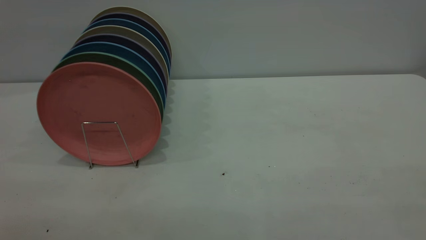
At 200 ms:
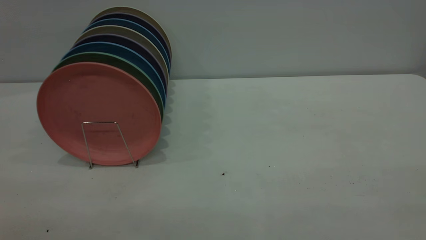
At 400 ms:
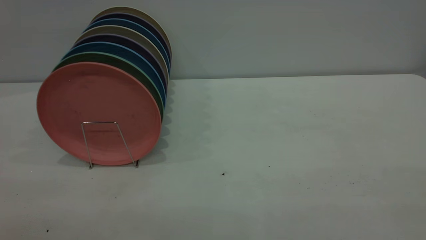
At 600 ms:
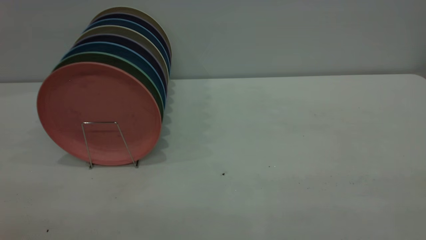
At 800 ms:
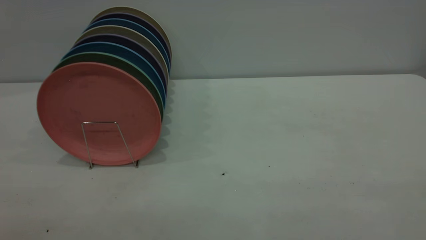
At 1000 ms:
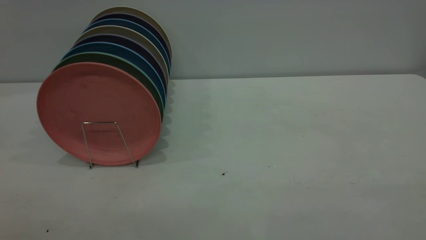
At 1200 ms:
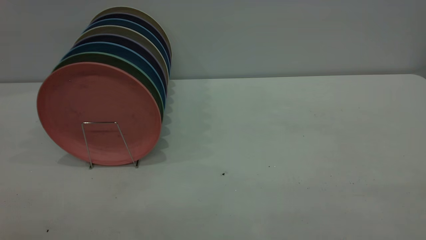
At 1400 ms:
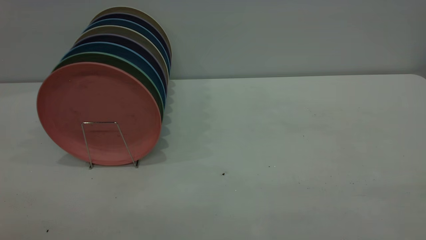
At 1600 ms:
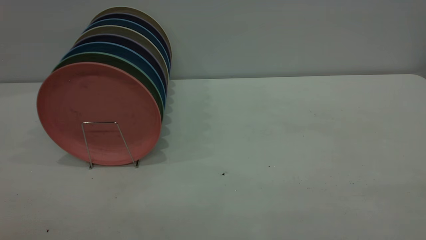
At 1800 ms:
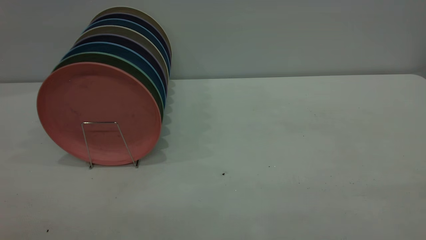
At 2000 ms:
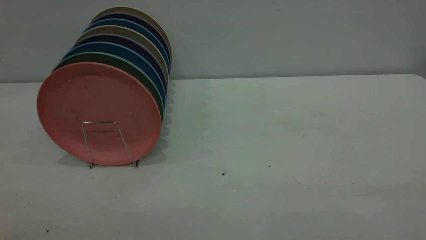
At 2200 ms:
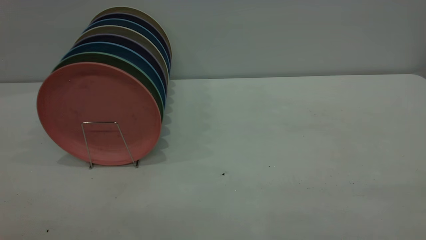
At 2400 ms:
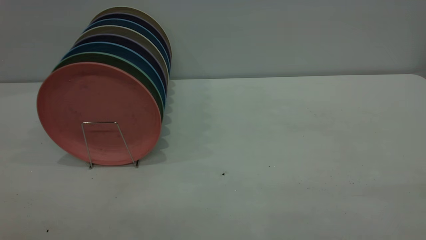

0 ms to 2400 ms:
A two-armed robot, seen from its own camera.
Task of the whole recording: the right gripper grasp the pink plate, the right gripper pass the pink plate to the left gripper, and the left gripper place the pink plate on the plate rack.
1200 ms to 2400 ms: Both grippers stay put.

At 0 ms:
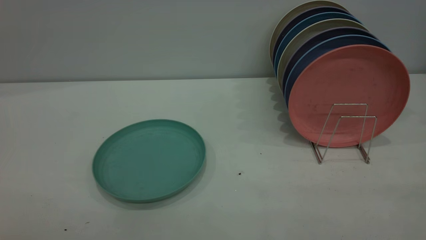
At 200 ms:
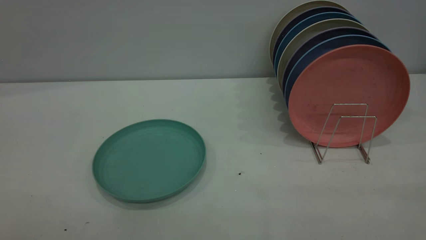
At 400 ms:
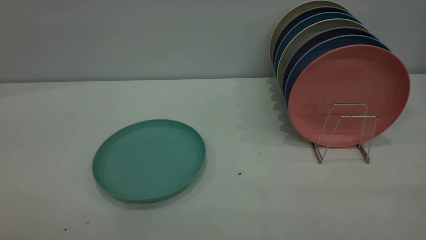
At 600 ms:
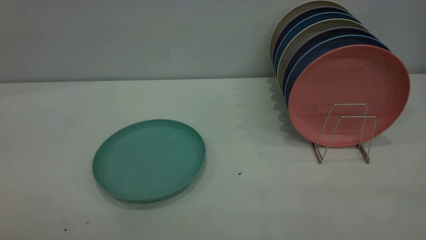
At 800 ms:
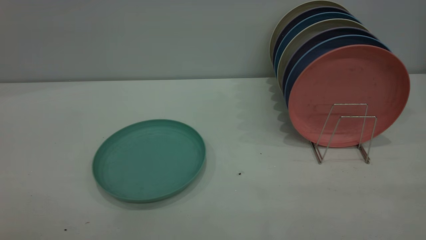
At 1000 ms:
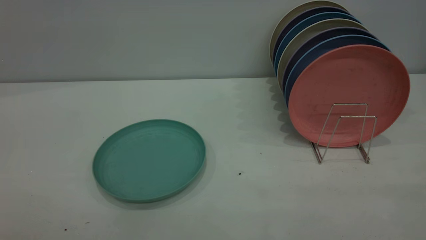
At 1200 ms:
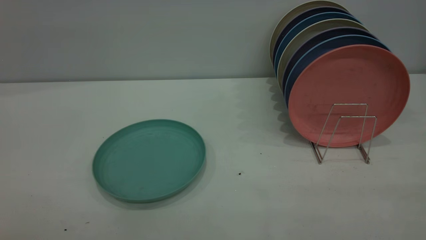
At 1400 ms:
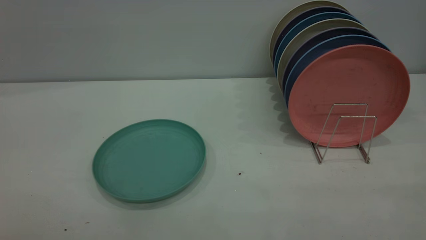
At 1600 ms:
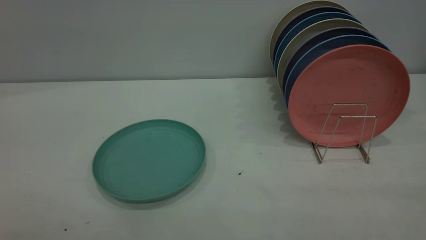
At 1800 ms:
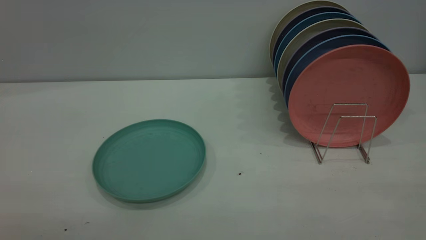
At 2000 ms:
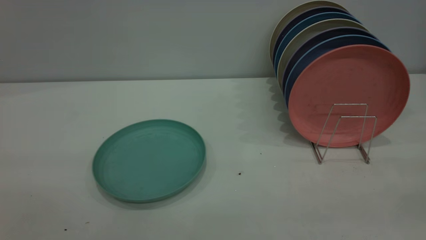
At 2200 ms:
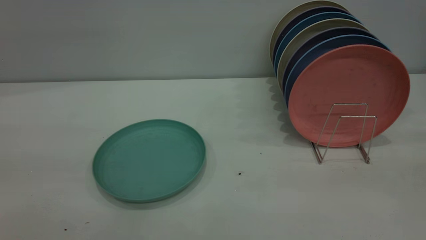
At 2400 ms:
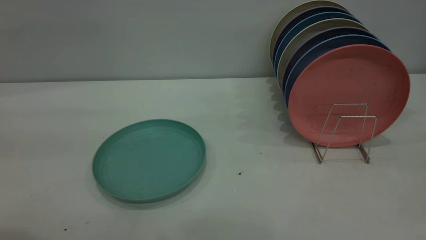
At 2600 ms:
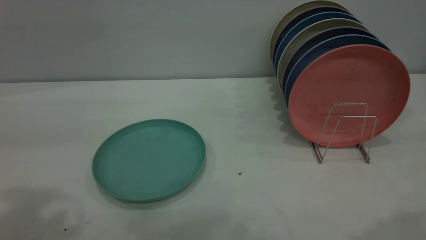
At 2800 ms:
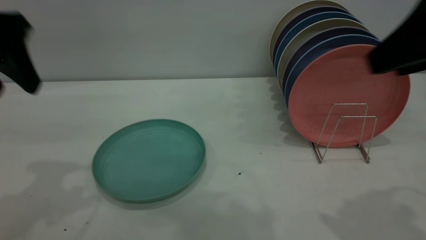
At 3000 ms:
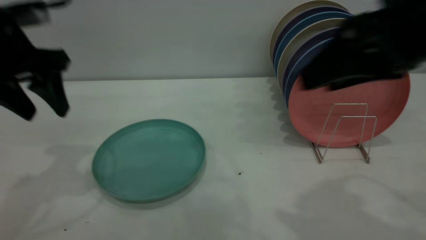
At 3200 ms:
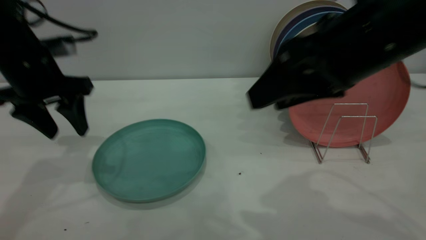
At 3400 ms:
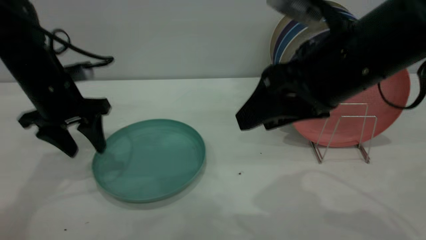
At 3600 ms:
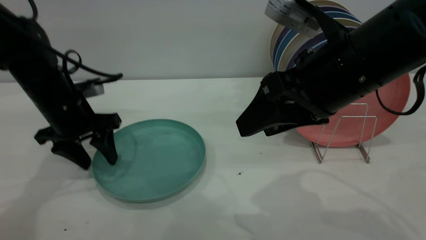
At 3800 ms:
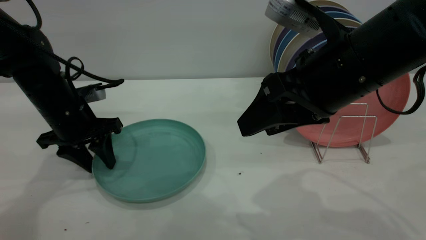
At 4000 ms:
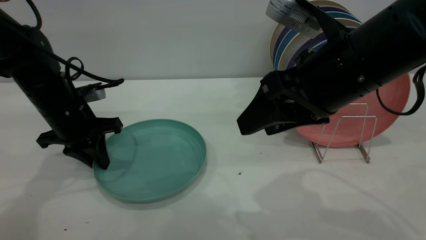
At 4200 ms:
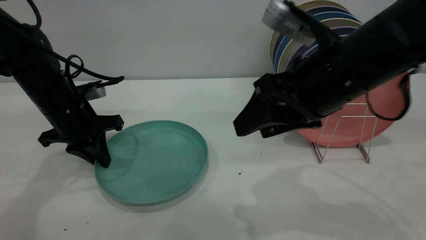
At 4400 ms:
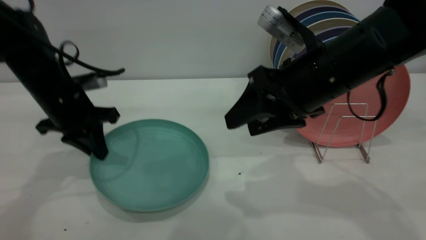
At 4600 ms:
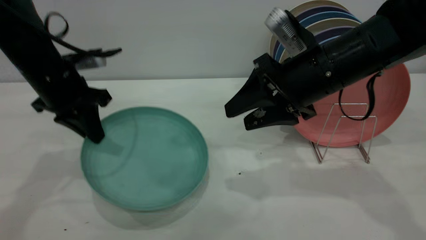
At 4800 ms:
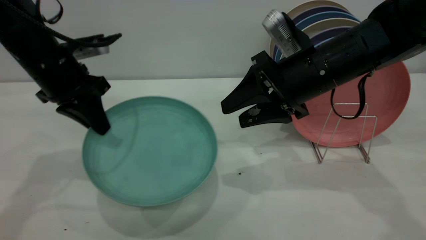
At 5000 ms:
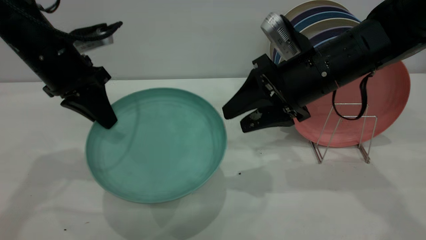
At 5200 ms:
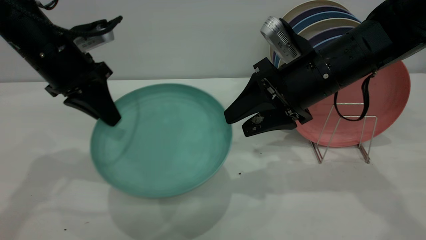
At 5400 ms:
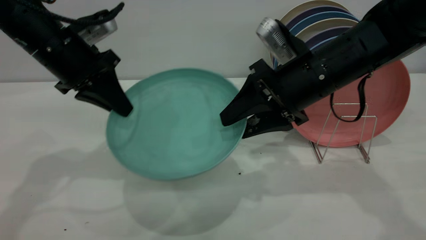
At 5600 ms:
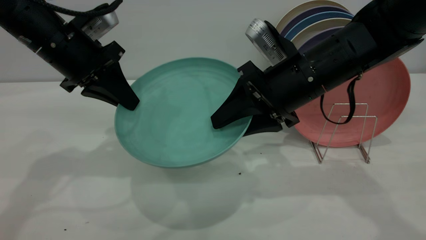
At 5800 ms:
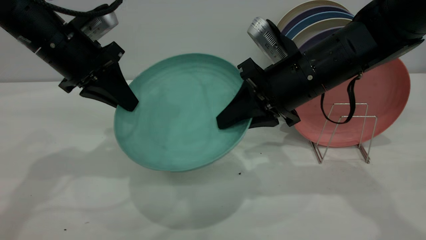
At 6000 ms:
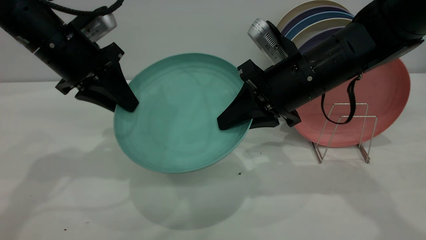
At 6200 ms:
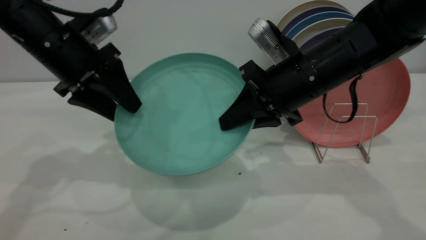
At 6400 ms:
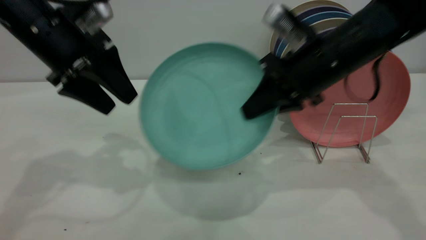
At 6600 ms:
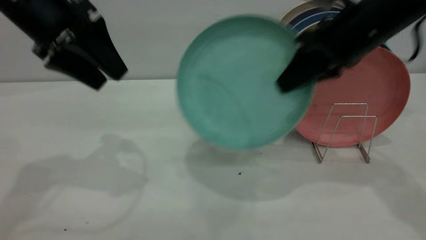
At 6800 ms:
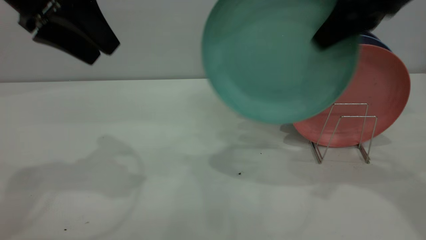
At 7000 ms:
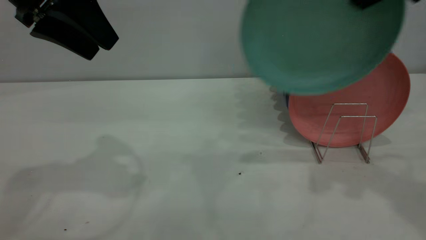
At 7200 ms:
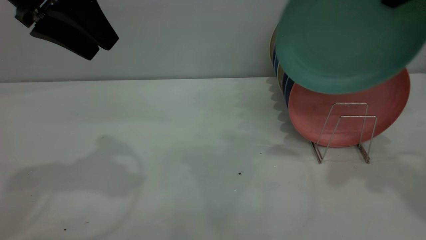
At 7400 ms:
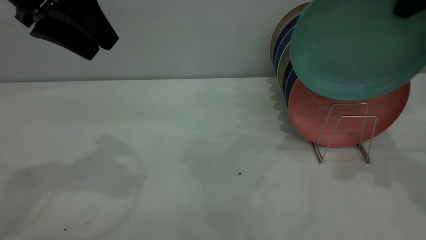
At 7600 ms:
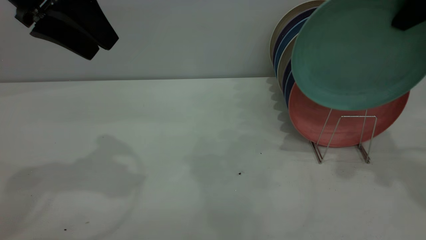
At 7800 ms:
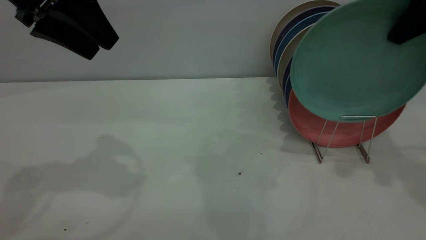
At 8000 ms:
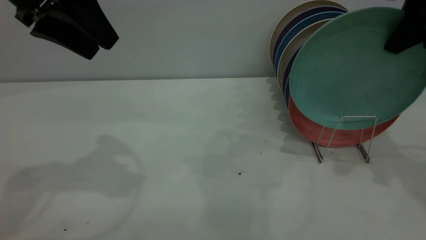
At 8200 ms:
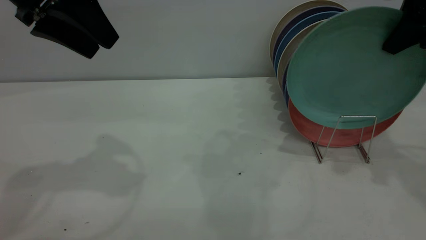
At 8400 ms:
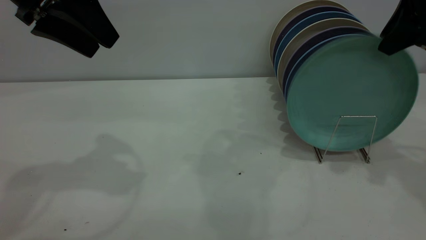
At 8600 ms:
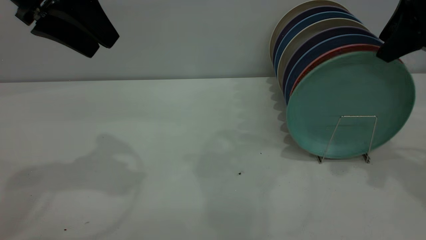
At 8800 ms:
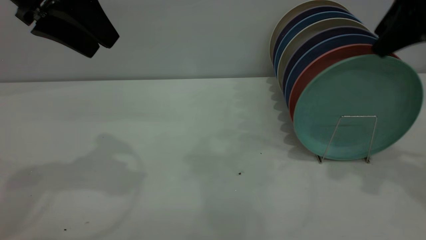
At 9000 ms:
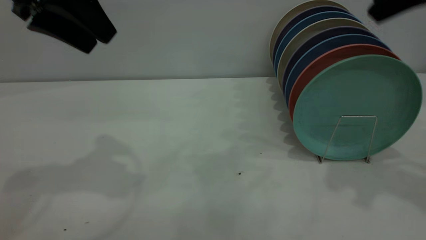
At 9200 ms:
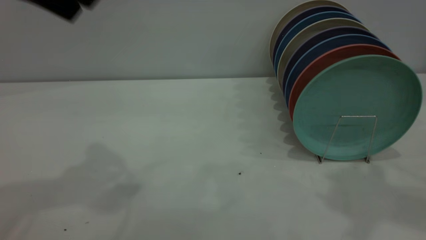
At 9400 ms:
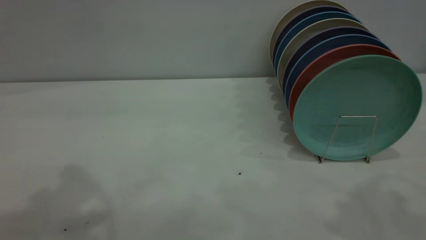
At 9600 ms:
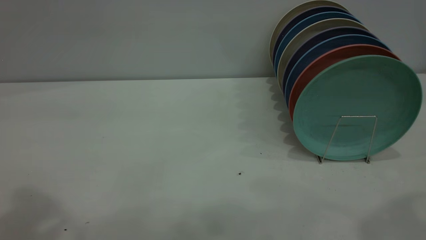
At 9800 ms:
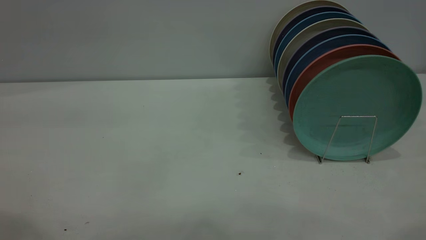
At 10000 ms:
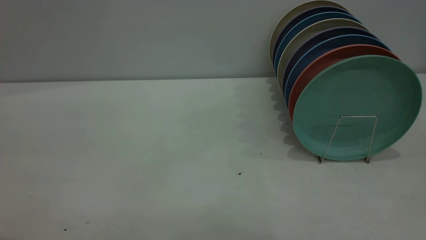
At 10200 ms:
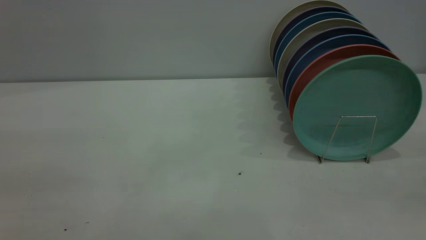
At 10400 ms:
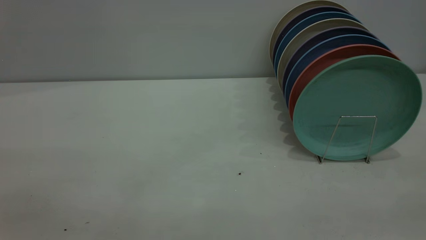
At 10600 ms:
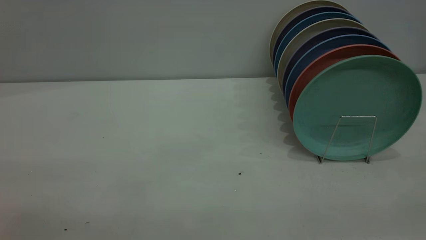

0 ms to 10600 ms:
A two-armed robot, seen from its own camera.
Task of the whole recording: the left gripper grasp the green plate, the left gripper pass the green plate to the right gripper, and the right gripper place the green plate on the plate rack.
Step, 0 ms to 4400 ms: Pick up the plate with the left gripper.
Step, 4600 ms to 6600 ms: Pass the plate from the left gripper to the right gripper.
Step, 6800 ms to 8800 ms: Place the plate on the shelf.
0 ms to 1600 ms: Both grippers stay put.
1600 ms to 3000 ms: The right gripper goes some 30 cm forward and to the left, while the left gripper shifts about 35 cm forward.
3000 ms to 4600 ms: The left gripper goes approximately 5 cm downward, and closes, while the right gripper travels forward and downward by roughly 15 cm.
4600 ms to 6000 ms: The left gripper opens. The right gripper closes up.
6000 ms to 7600 ms: The left gripper travels upward by some 10 cm, and opens up. Meanwhile the right gripper heads to the right and upward, covering roughly 20 cm.
7600 ms to 9000 ms: The right gripper moves roughly 5 cm, and opens up.
9000 ms to 10600 ms: Both grippers travel together backward, approximately 25 cm.

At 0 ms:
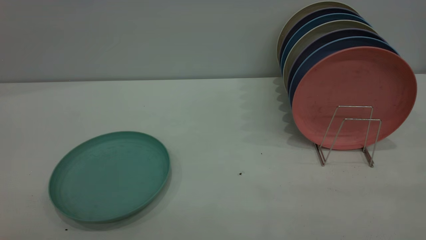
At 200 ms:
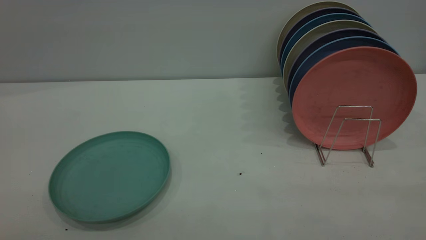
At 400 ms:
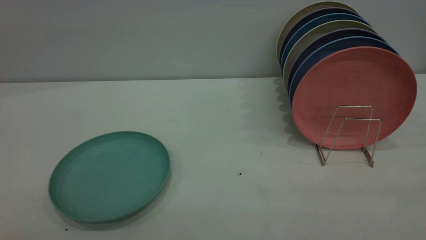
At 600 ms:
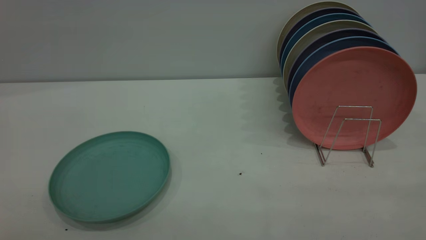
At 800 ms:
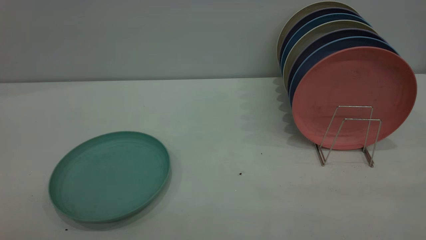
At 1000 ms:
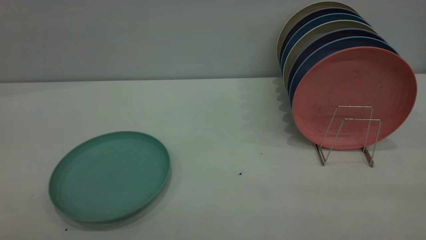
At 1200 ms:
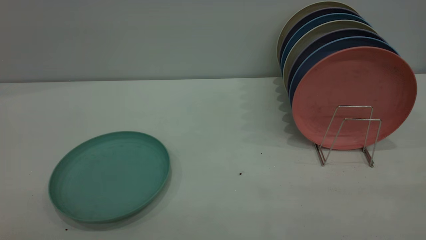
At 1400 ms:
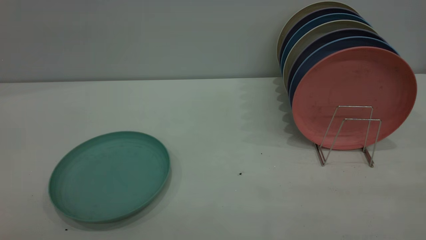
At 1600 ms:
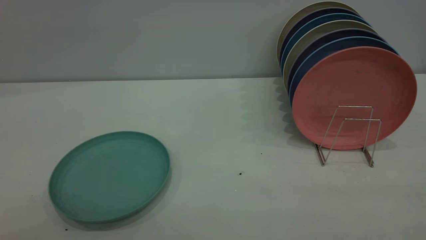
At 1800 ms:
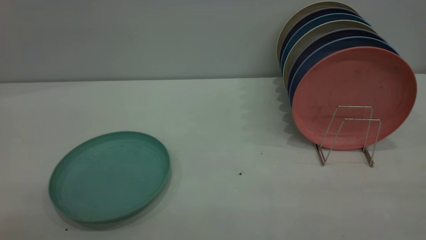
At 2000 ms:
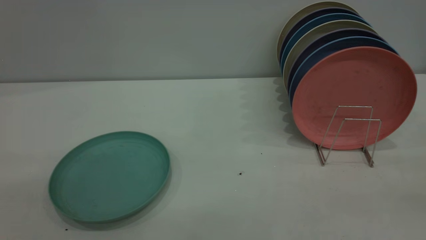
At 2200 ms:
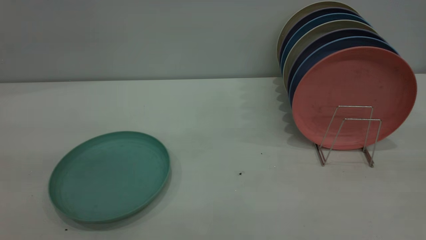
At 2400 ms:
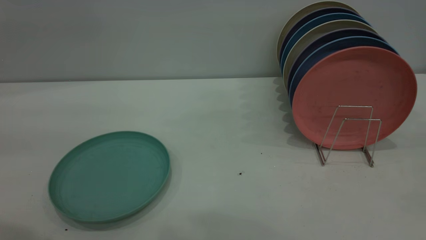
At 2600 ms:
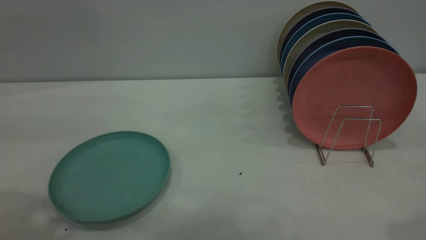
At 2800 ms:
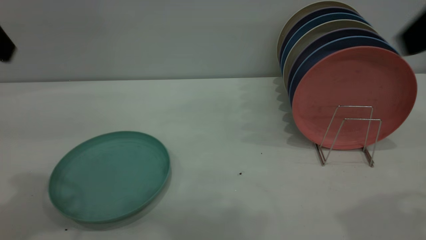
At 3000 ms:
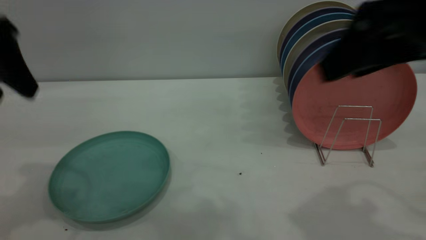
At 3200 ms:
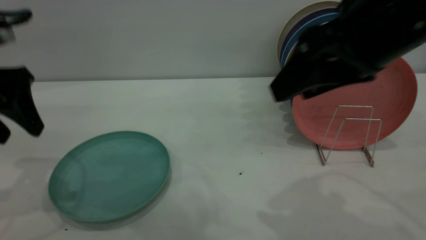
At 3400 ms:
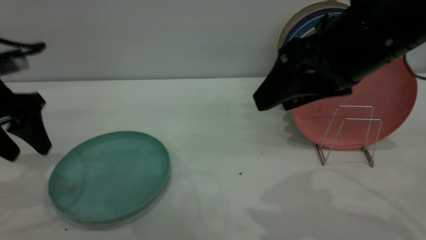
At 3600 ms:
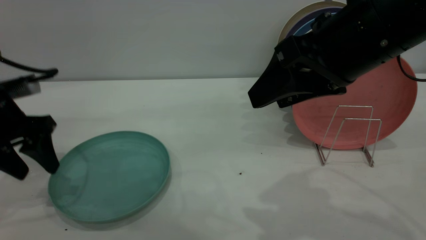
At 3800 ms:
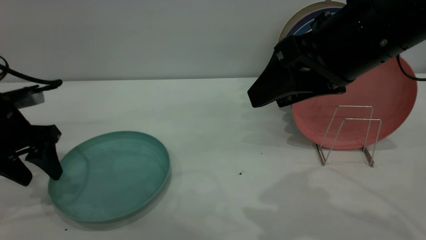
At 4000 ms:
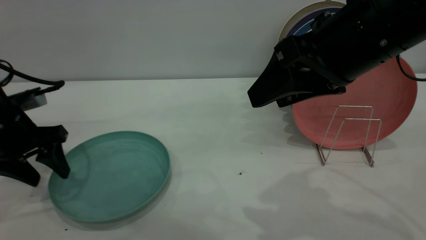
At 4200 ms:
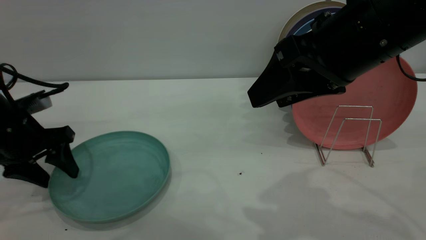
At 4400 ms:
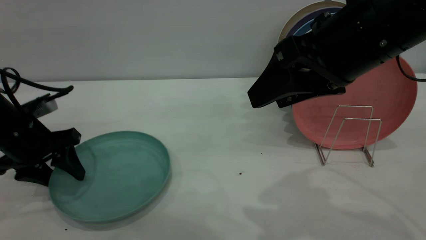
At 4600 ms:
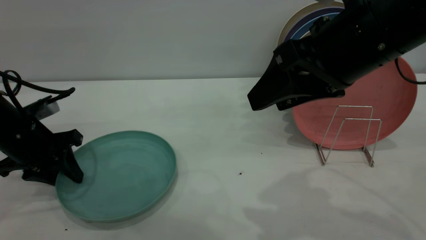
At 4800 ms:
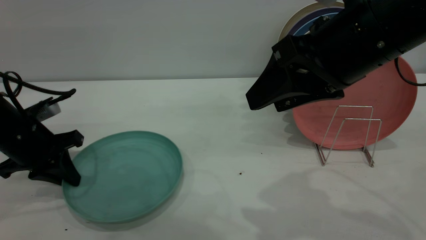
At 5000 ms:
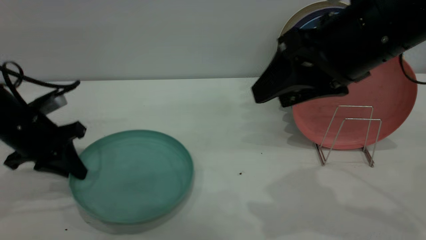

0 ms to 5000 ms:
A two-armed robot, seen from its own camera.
Task of the whole recording: the left gripper grasp the green plate, the left gripper pass the green plate to the right gripper, and the right gripper place the green plate on the plate rack.
0 ms to 1600 ms: Both grippers stay about where they are.
1600 ms to 3400 ms: The right gripper travels forward and to the left by approximately 30 cm, while the left gripper shifts some 40 cm forward and downward.
3400 ms to 5000 ms: The left gripper goes approximately 5 cm downward, and closes its fingers.
